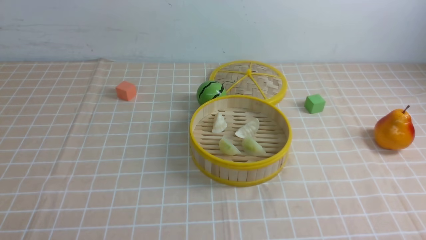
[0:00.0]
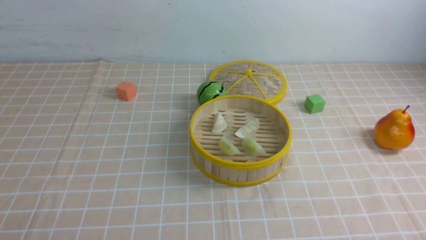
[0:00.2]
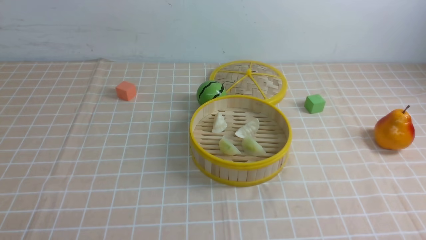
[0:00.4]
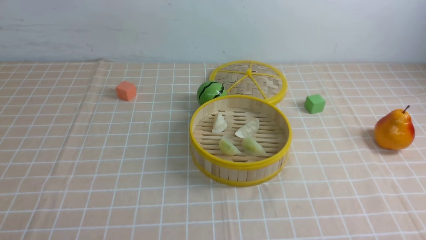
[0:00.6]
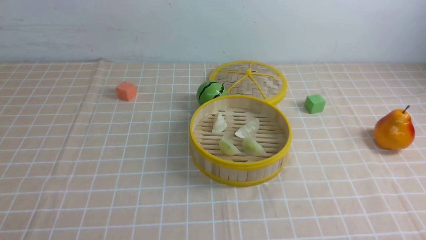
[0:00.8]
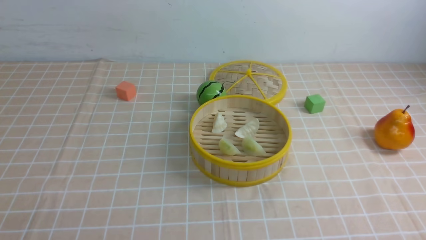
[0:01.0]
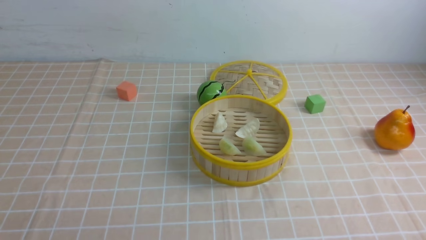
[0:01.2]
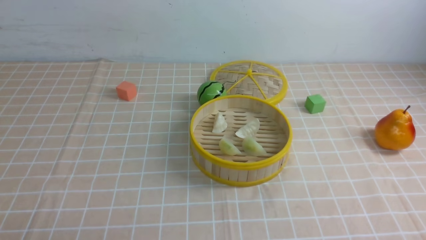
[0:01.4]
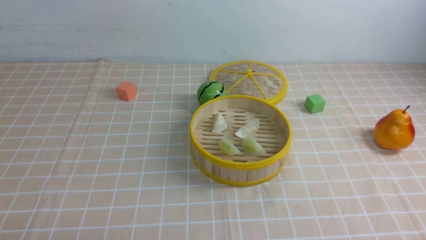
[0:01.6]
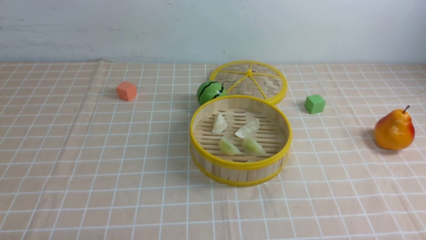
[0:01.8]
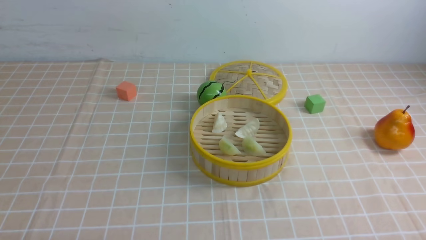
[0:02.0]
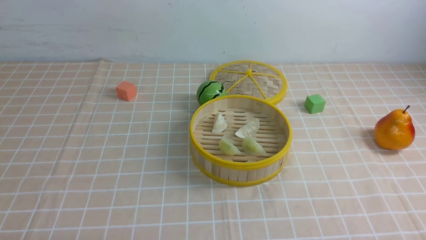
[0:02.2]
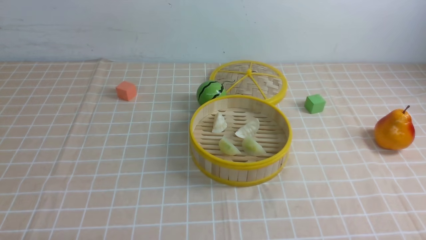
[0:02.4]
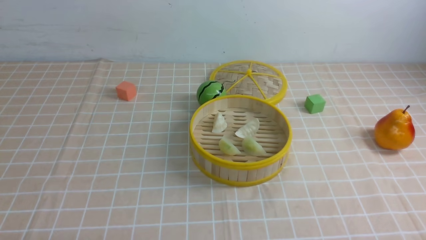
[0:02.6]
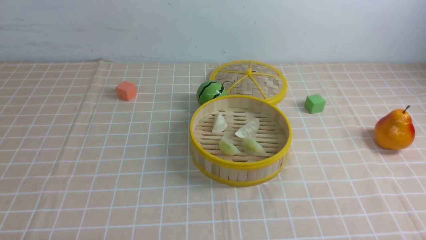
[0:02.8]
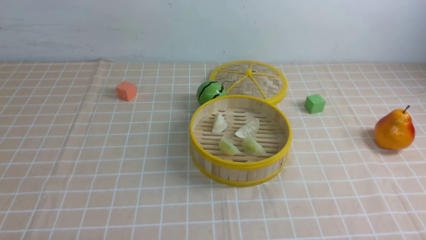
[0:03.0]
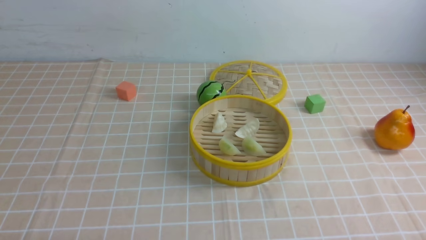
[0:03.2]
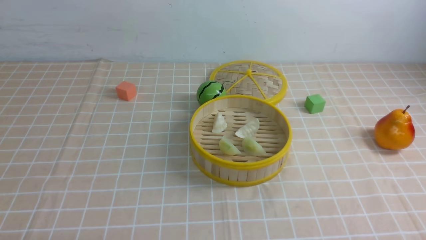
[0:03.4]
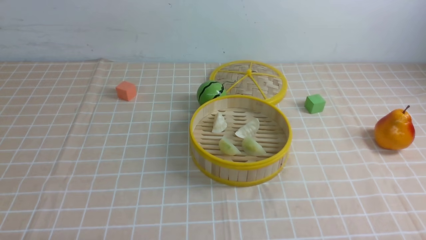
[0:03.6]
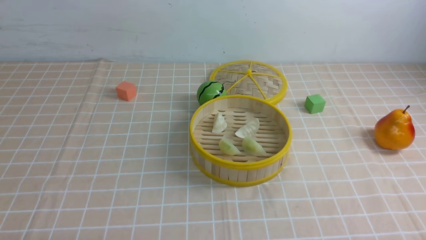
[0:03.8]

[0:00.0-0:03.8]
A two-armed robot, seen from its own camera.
Task of the whole recording: put the dumplings into the steamer on the table with the brown tablecloth.
0:02.6 to 0:03.8: Neither gripper changes place.

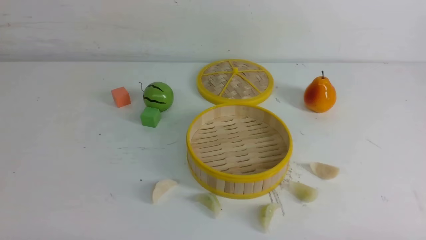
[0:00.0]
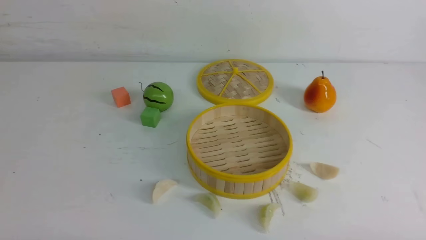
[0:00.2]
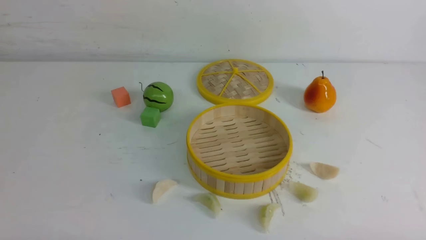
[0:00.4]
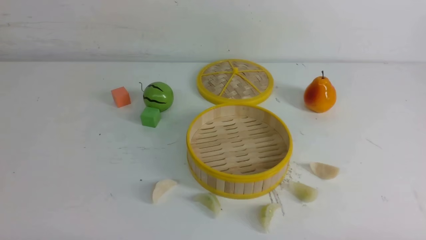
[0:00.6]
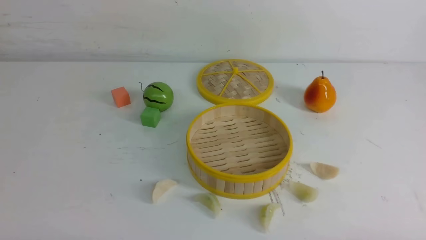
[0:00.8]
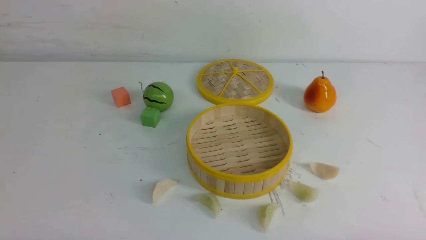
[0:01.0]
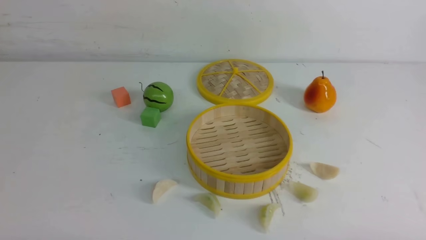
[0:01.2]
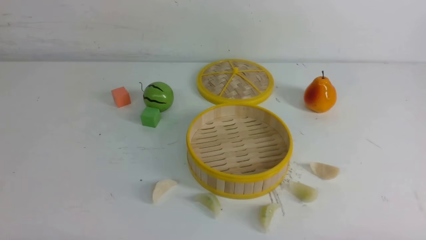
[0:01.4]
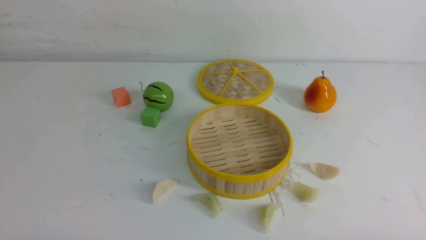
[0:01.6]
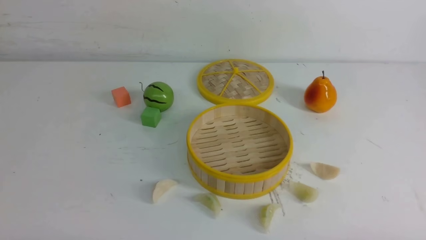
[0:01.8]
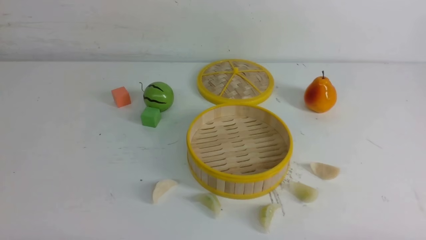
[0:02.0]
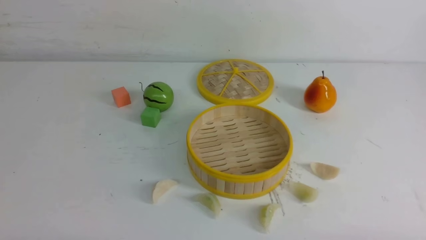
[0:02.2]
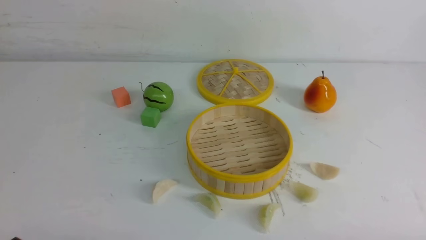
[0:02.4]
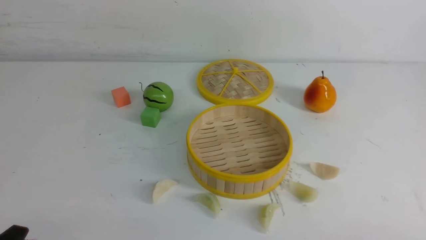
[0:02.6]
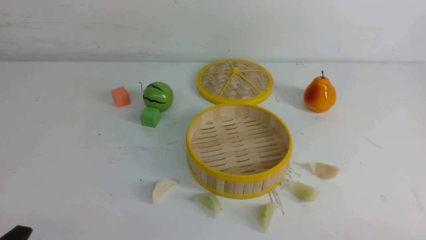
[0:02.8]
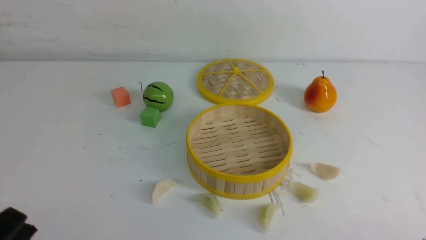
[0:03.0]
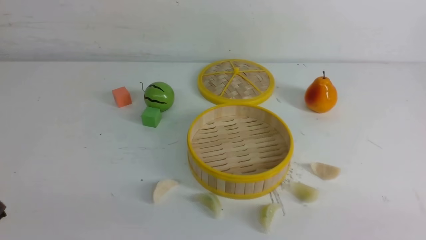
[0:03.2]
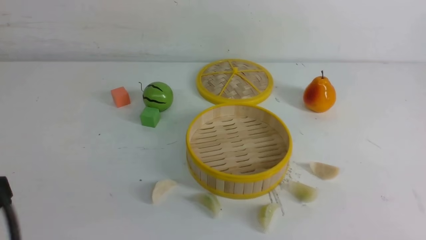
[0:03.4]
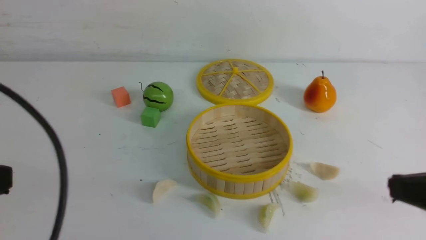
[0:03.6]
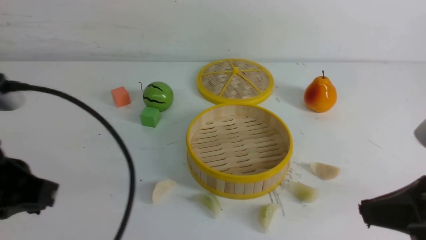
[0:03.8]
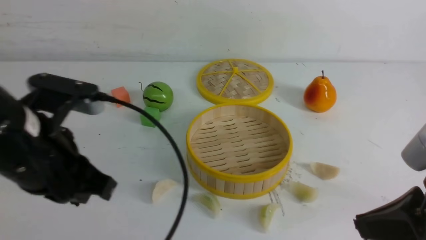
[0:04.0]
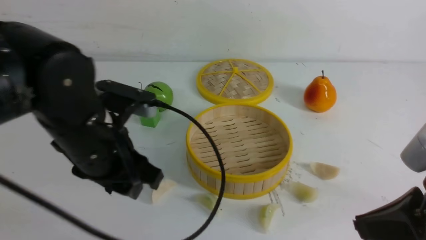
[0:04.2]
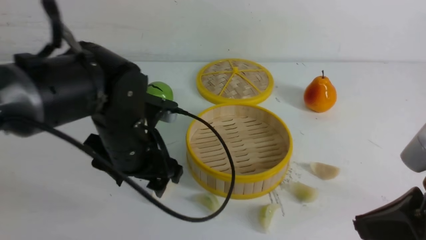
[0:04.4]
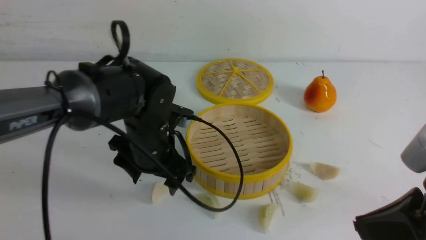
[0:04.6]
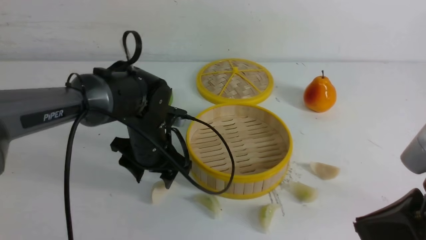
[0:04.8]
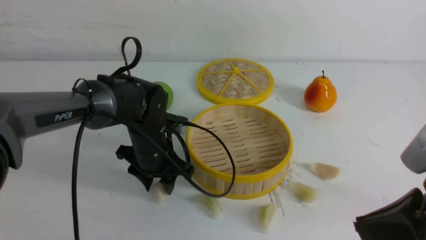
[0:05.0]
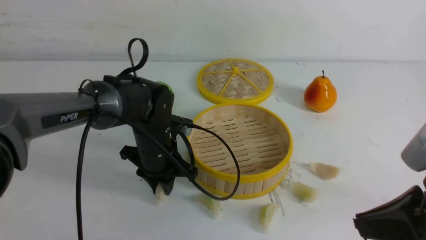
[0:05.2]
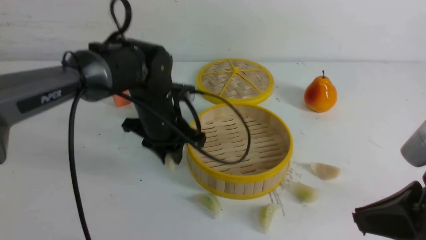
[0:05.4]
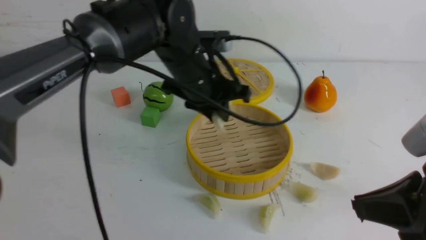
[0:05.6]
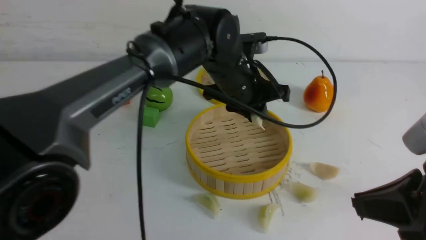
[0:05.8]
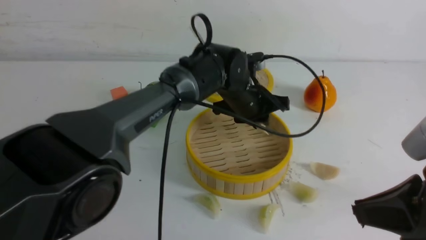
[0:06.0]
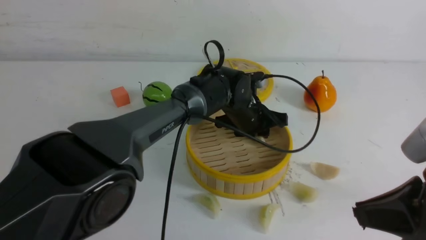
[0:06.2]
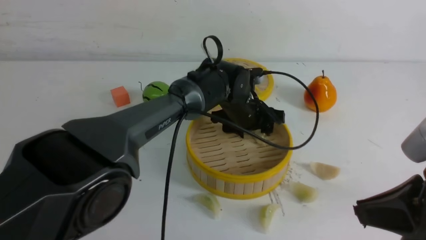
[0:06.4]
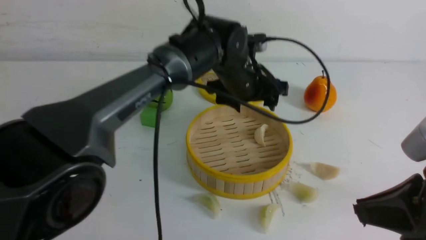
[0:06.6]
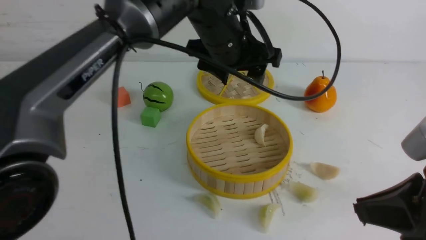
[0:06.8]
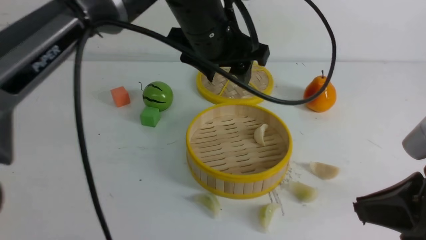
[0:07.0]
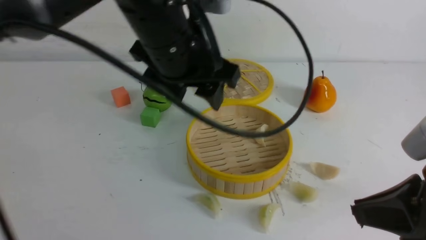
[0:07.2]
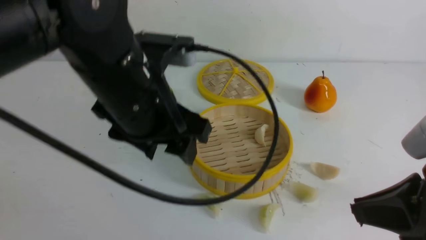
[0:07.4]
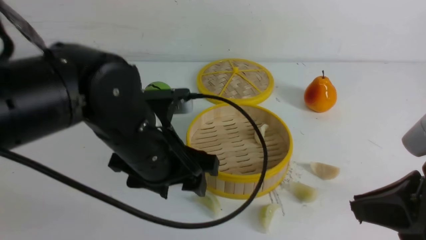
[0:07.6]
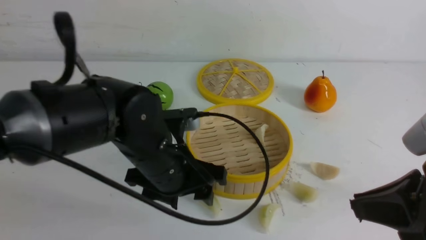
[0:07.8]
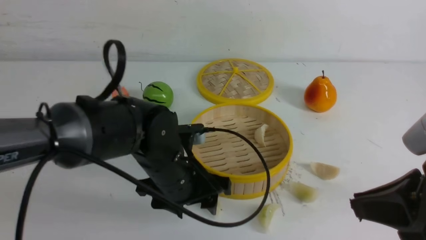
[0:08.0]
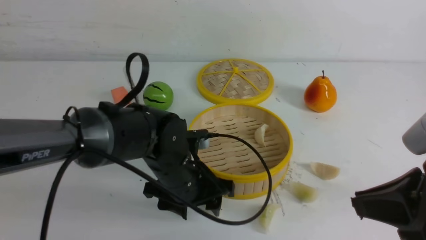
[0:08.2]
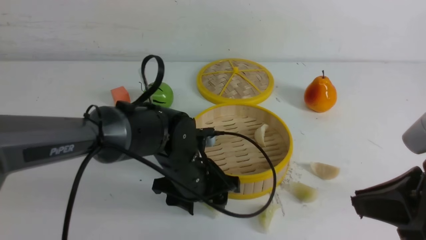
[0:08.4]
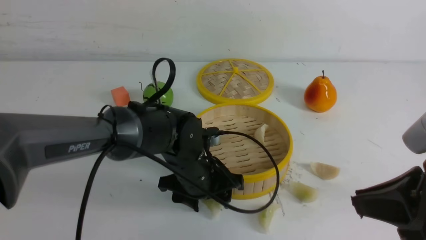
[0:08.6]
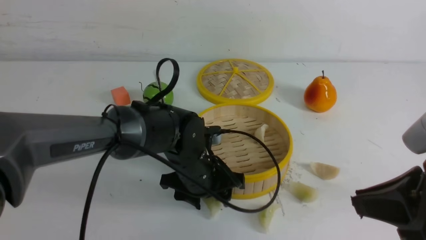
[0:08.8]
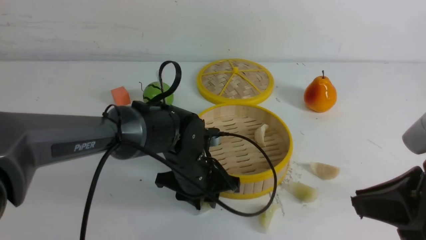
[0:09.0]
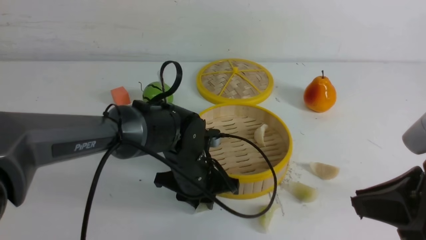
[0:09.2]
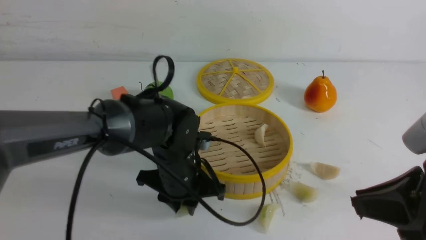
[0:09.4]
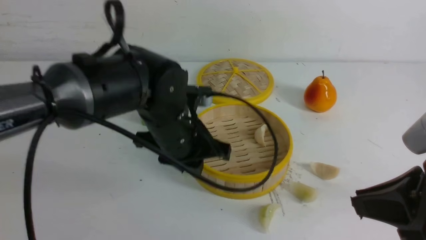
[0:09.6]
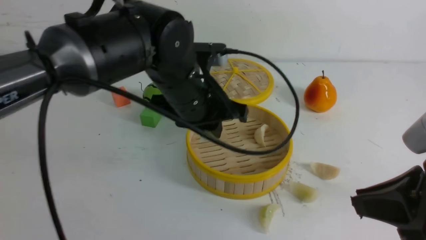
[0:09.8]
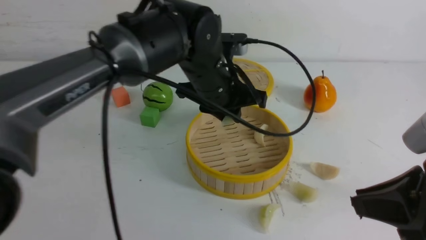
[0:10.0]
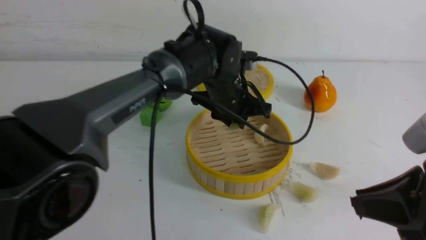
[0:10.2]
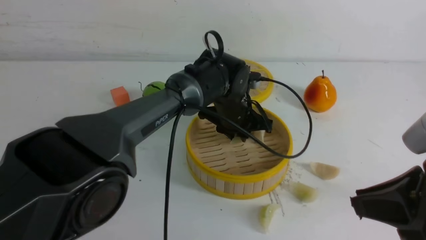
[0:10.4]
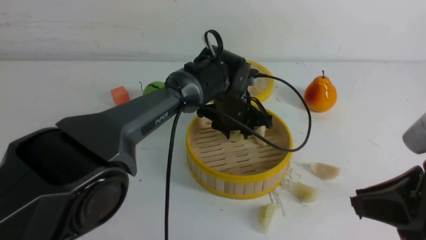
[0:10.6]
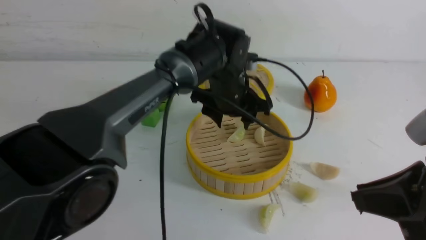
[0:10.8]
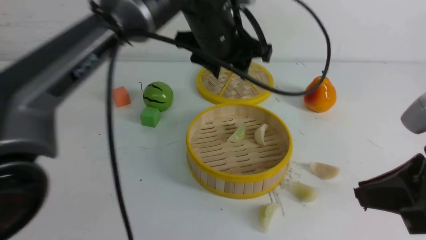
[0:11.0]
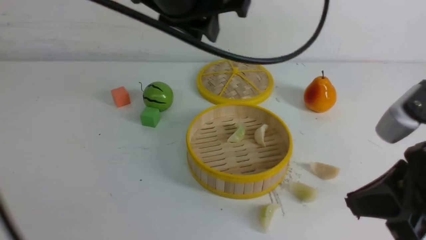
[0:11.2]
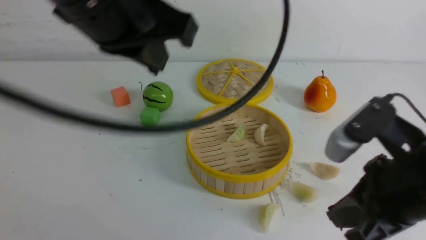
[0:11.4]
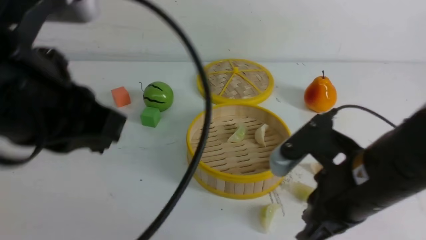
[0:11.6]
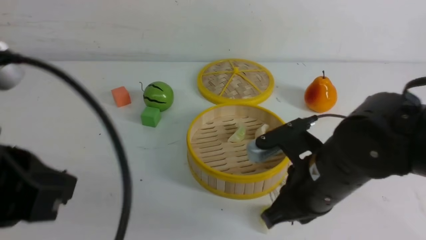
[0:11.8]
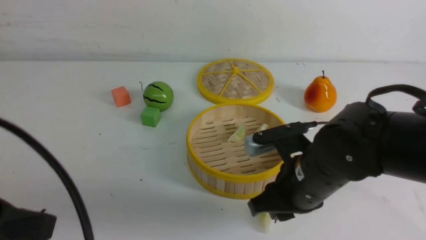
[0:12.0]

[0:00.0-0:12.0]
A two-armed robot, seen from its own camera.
Task of the whole recording: put the dumplings into the steamer on the white table.
Step, 0:00.0 to 0:05.2: use the left arm to grab a dumpling.
Step, 0:05.4 to 0:06.2: use the left arm to put the dumpling into the steamer.
Step, 0:06.6 to 0:09.4: use the left arm to grab a dumpling.
Step, 0:09.6 to 0:10.4: use the left arm to put the dumpling into the steamer.
0:00.0 to 0:01.6: Both grippers stay about where they are.
0:01.6 to 0:03.0: The left gripper travels upward by roughly 10 cm.
0:03.0 to 0:04.4: The right gripper is displaced upward, forward and to the left by approximately 15 cm, and closes up. The left gripper heads forward and to the right, covering some 30 cm, and opens up.
0:04.4 to 0:06.0: The left gripper travels to the right and forward by approximately 20 cm, and closes up.
0:06.0 to 0:07.6: The left gripper shifts roughly 20 cm backward and to the left, reaches about 15 cm upward, then returns, and opens up.
0:07.6 to 0:09.0: The left gripper moves downward and forward, some 15 cm, and closes up.
0:09.0 to 0:10.4: The left gripper shifts roughly 15 cm forward, to the right and upward.
0:10.4 to 0:12.0: The left gripper is displaced backward, to the left and upward by approximately 40 cm, and closes, while the right gripper heads to the left, forward and downward, covering about 20 cm.
